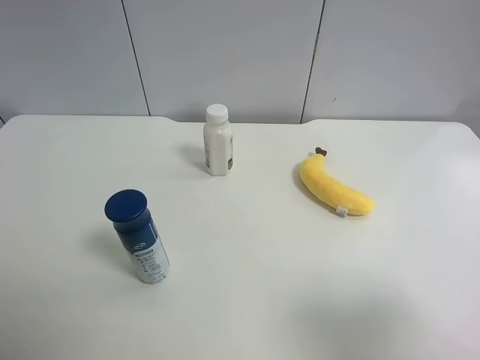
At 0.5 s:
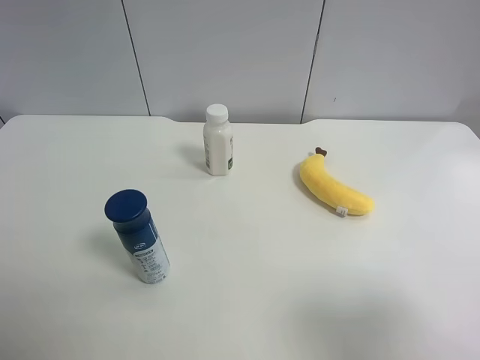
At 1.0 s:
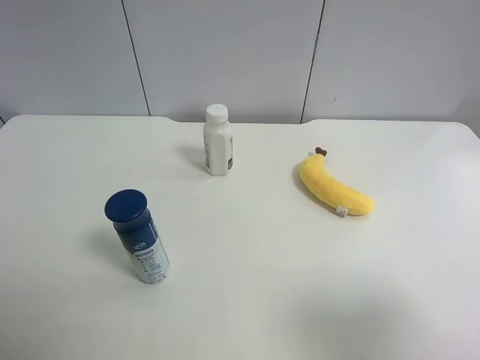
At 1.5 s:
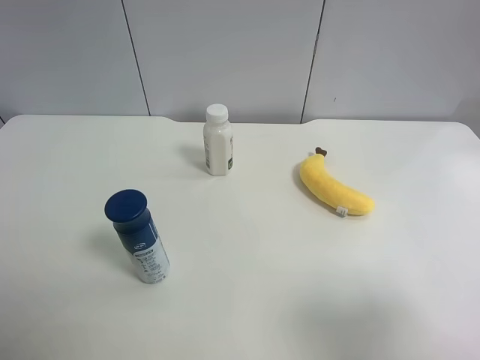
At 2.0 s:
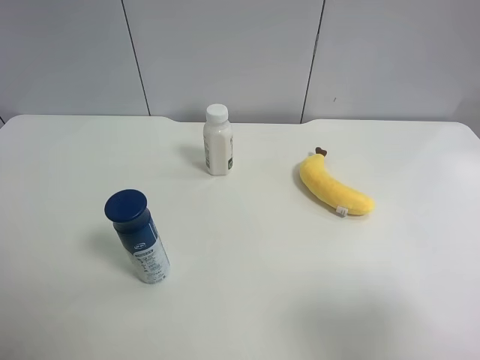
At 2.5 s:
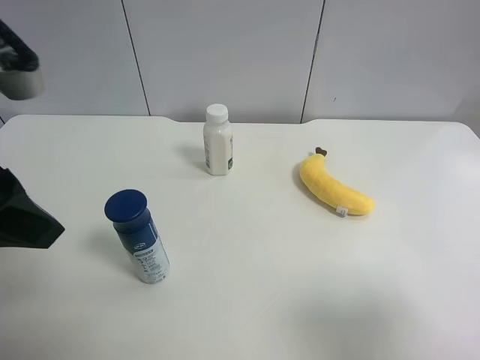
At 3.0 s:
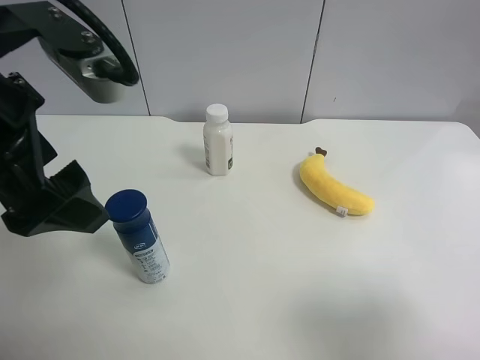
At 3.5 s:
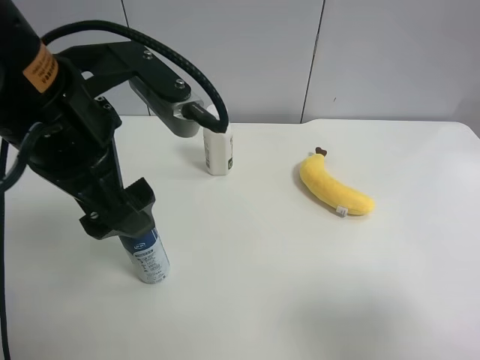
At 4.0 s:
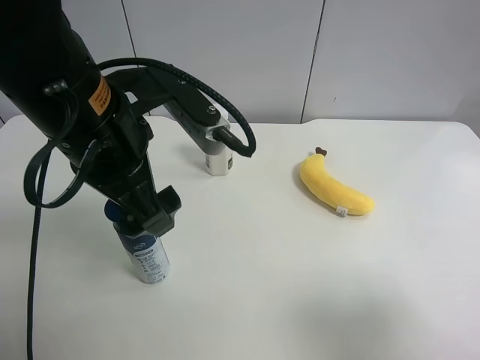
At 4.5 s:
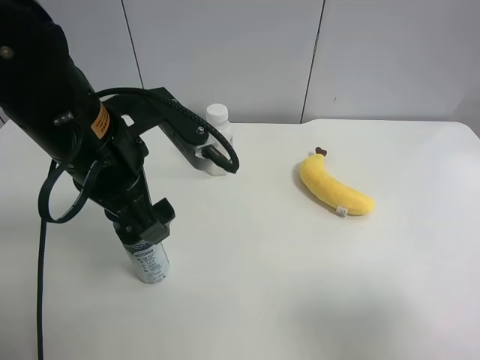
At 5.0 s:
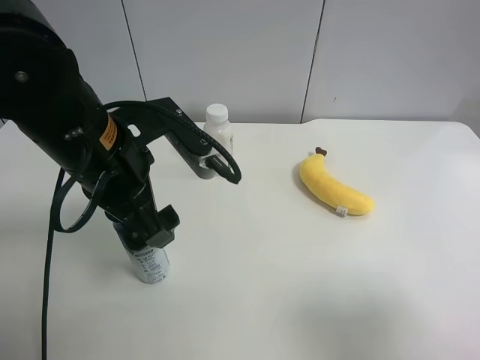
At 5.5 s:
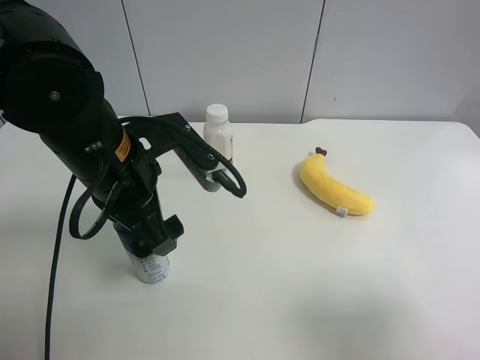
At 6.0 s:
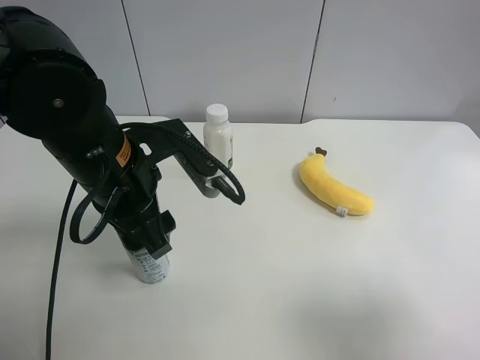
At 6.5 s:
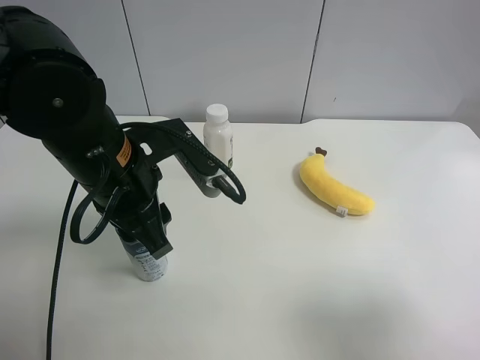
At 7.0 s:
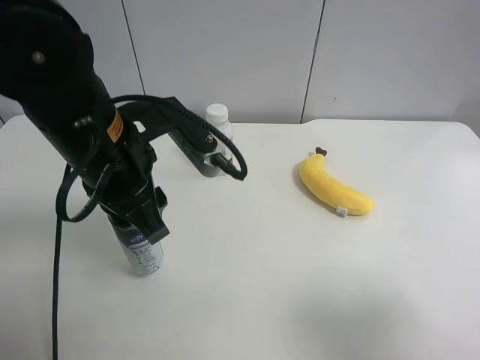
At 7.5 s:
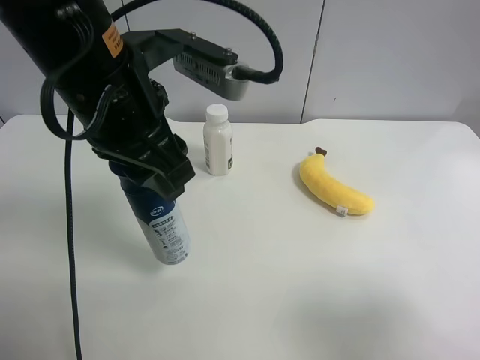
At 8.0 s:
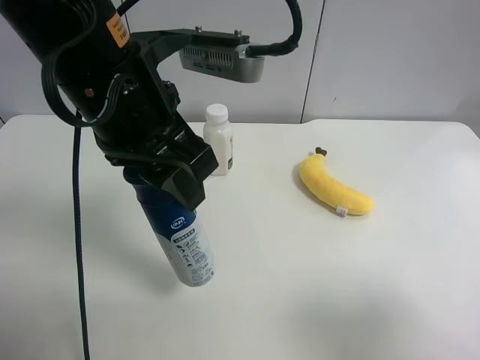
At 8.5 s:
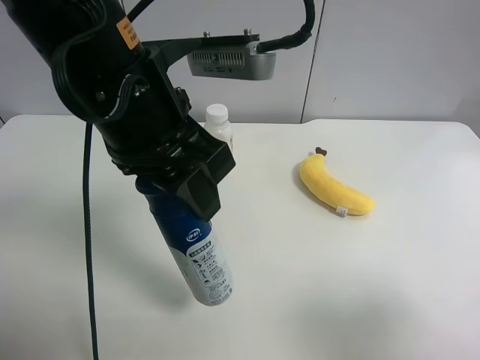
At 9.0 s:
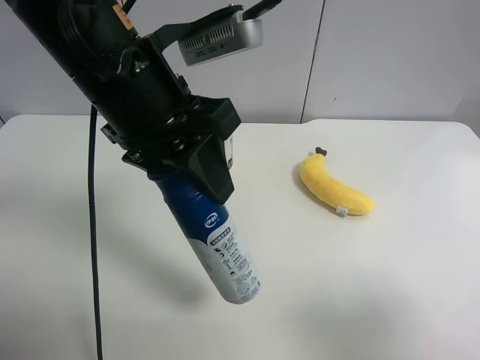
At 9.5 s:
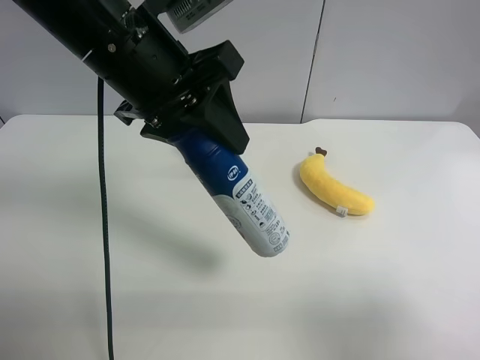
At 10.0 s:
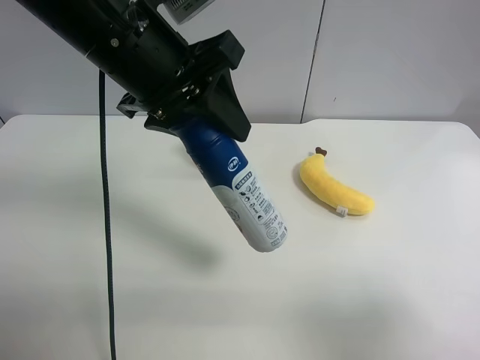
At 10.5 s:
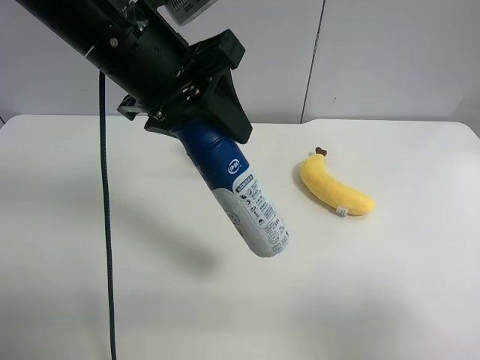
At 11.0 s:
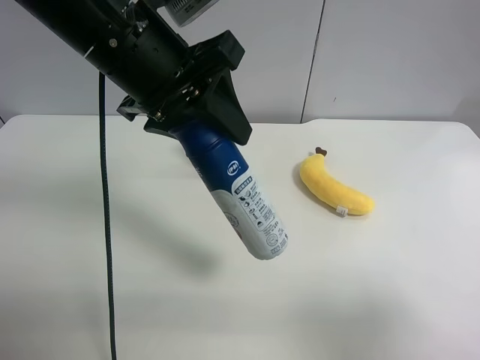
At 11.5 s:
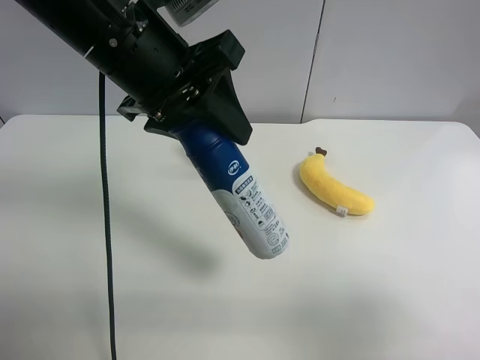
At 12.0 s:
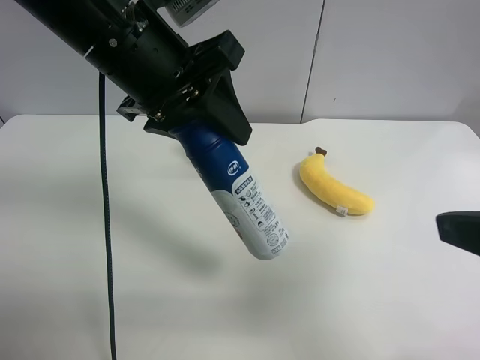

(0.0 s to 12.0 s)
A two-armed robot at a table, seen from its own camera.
Task of the whole recording: use the left gripper to pick up the item and transfer it from the left gripper to the right gripper.
2.0 s - 4.0 s: The left gripper travels to the right, forward and downward by roughly 20 cm.
4.0 s - 6.0 s: The left gripper heads downward, covering roughly 5 cm, and closes up.
6.0 s - 8.0 s: The left gripper is displaced upward by approximately 10 cm.
8.0 s - 10.0 s: The left gripper travels forward by about 5 cm.
10.0 s - 12.0 s: The right gripper heads forward, covering some 10 cm.

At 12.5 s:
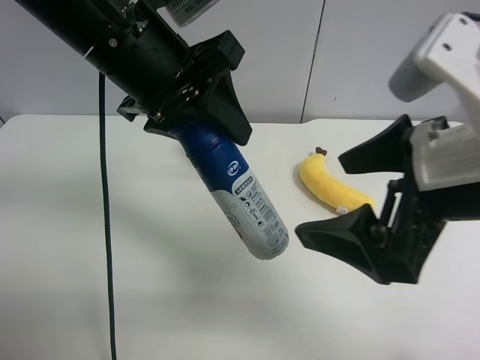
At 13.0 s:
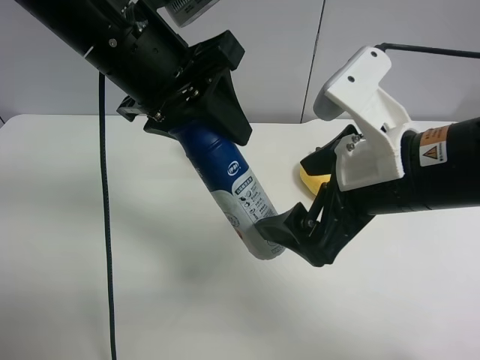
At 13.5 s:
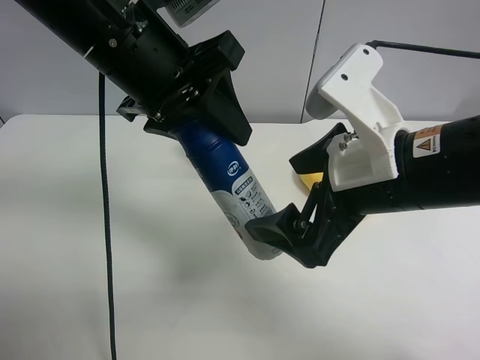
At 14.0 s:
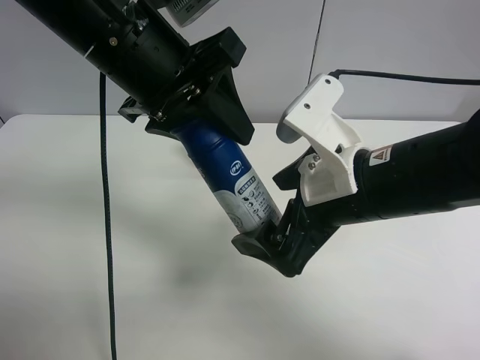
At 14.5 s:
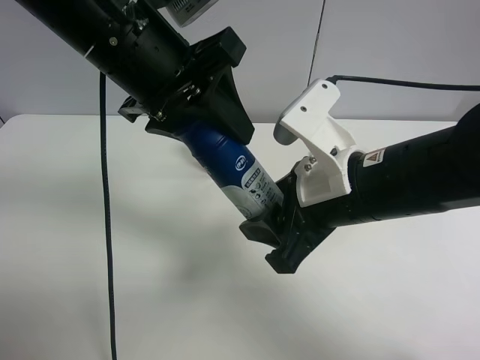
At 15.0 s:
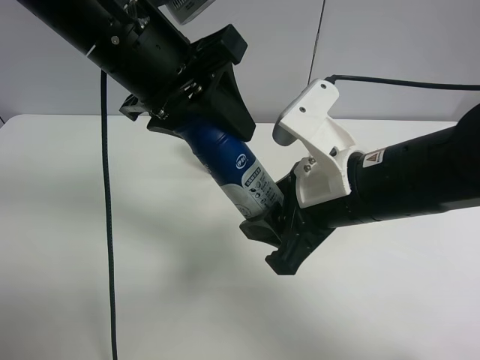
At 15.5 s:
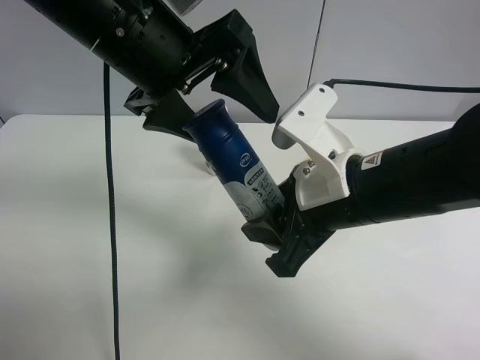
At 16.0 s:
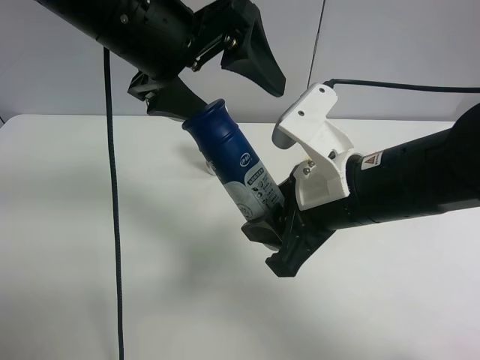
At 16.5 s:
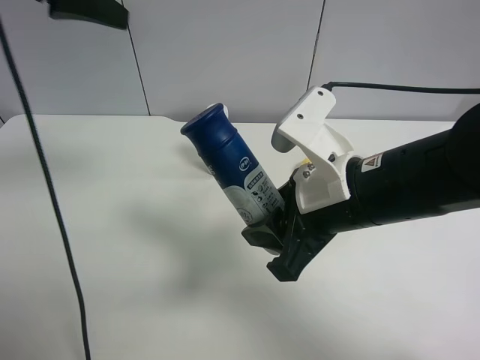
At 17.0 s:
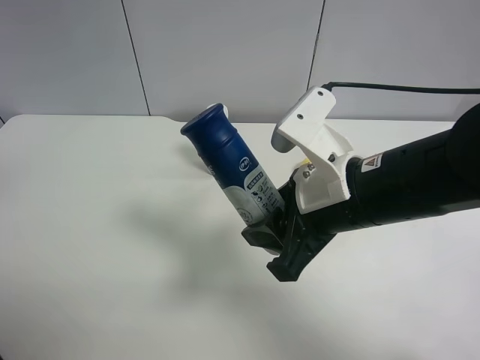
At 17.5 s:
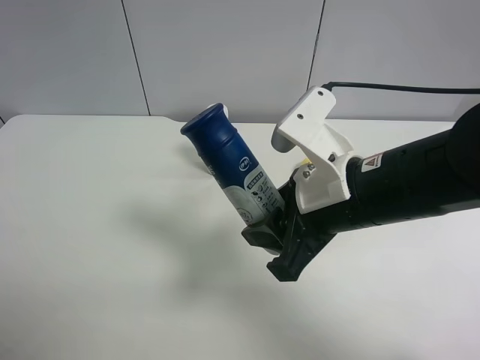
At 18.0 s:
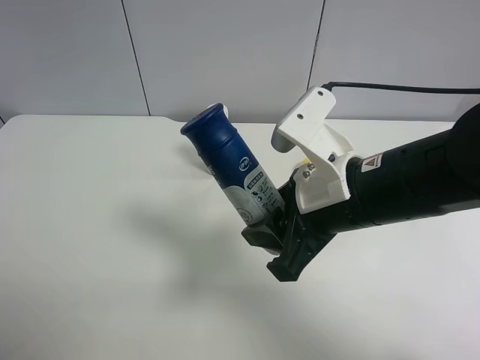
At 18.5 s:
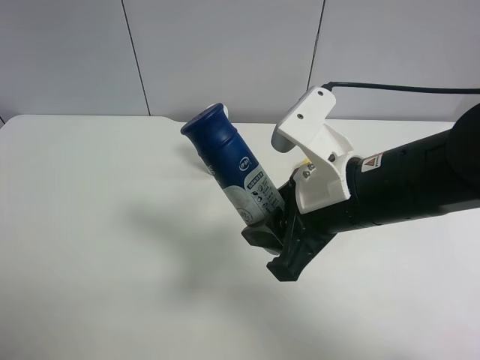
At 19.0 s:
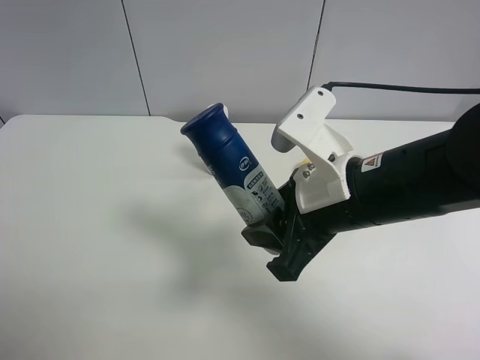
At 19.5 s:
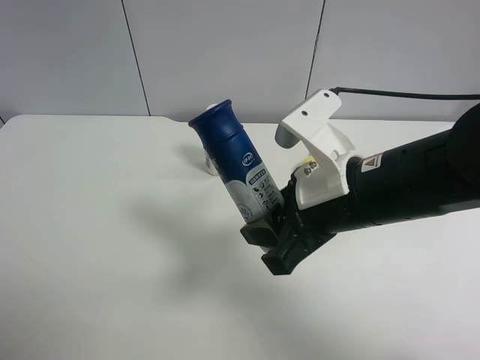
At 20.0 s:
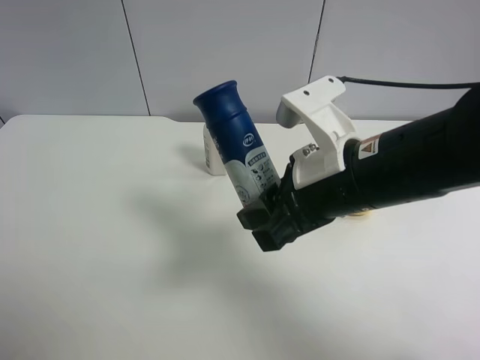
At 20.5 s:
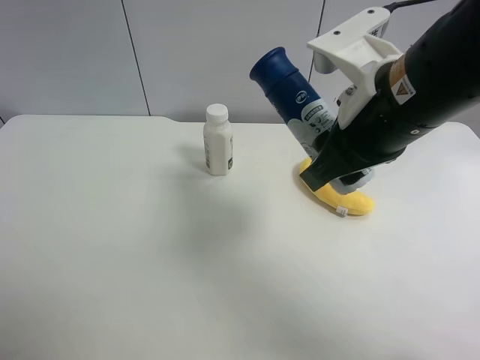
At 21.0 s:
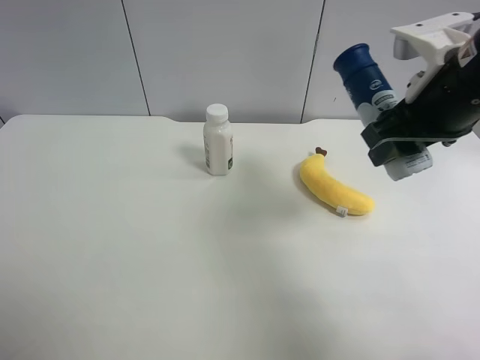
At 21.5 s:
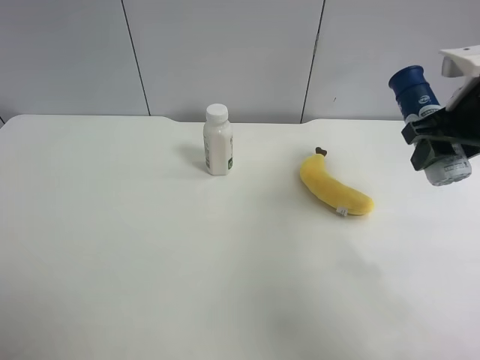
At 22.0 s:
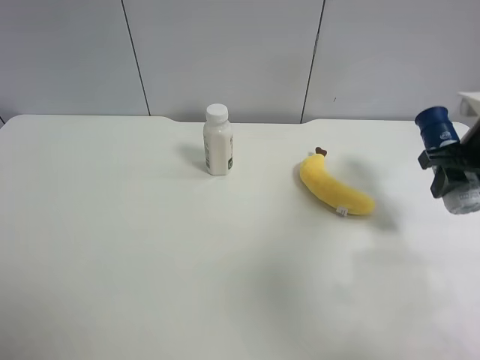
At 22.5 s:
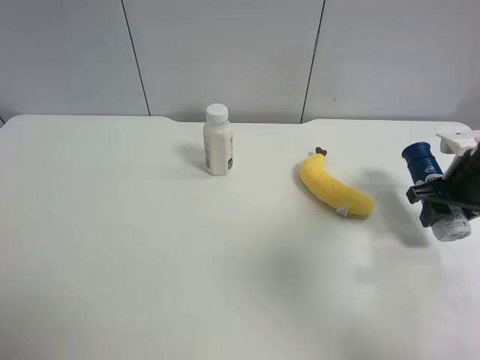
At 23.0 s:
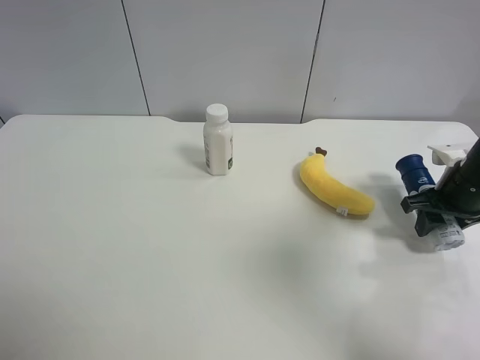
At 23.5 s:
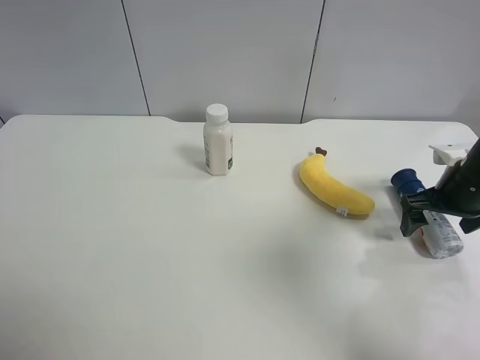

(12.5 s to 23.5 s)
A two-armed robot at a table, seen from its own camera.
Task of the whole recording: use the left gripper to pick up the item and transfer it from the left gripper to the right gripper.
12.5 s - 14.5 s: The right gripper shifts roughly 5 cm downward, and closes its fingers.
14.5 s - 16.0 s: The left gripper opens up.
16.0 s - 18.0 s: The left gripper heads backward and to the left, covering some 35 cm.
18.0 s - 20.0 s: The left gripper heads downward, covering roughly 5 cm.
20.0 s - 21.5 s: The right gripper heads to the right and forward, covering approximately 20 cm.
21.5 s - 23.5 s: The right gripper goes roughly 15 cm downward and to the right, and opens its fingers.

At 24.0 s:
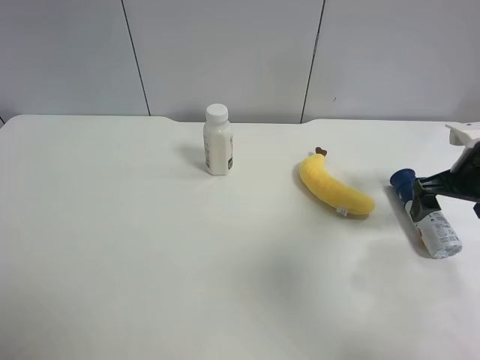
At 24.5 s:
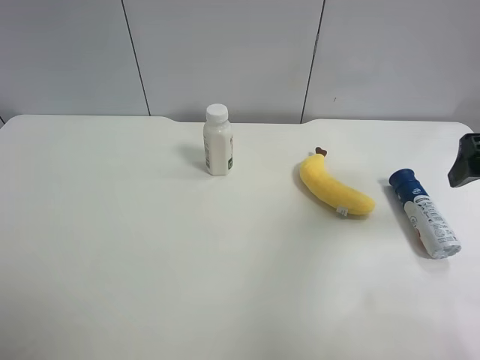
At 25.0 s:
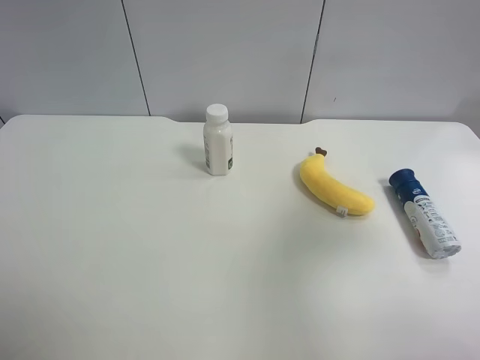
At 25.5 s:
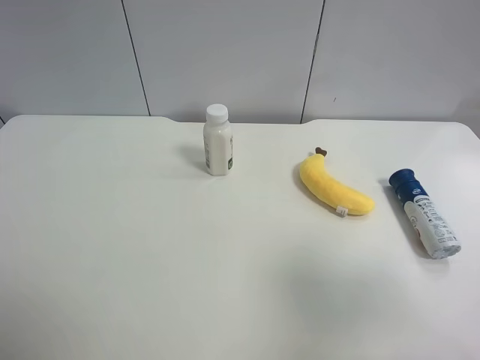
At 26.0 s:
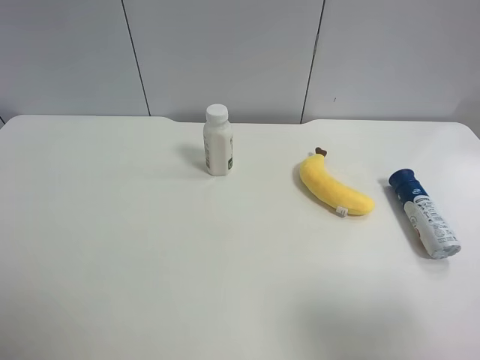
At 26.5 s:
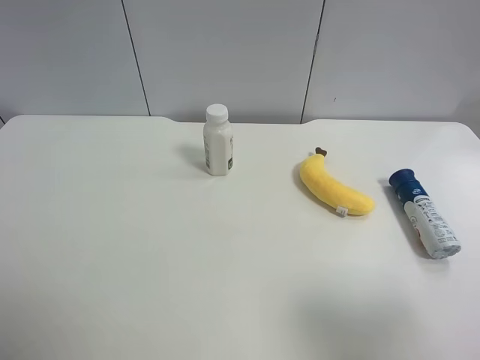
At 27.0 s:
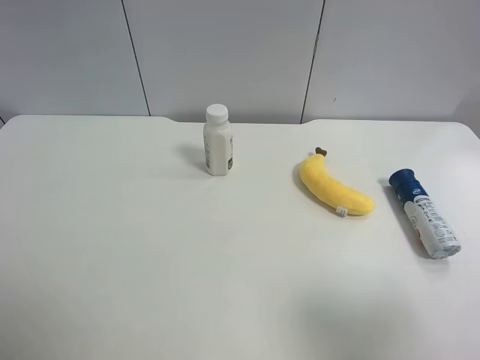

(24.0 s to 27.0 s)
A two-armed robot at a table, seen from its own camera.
Task of the whole recording: use the left gripper to pick up the item and transfer it from the left gripper to the right gripper.
24.0 s - 25.5 s: The right gripper shifts some 30 cm backward and upward.
25.5 s - 27.0 s: The right gripper ends up roughly 5 cm from where it was.
